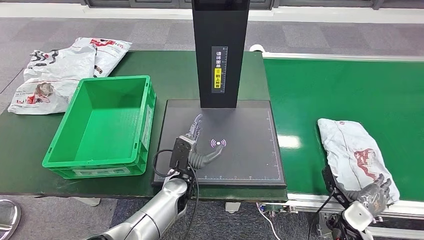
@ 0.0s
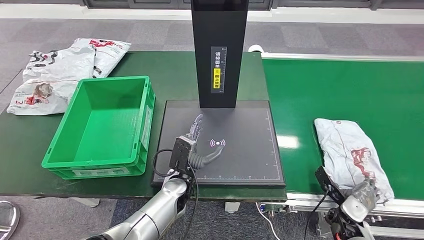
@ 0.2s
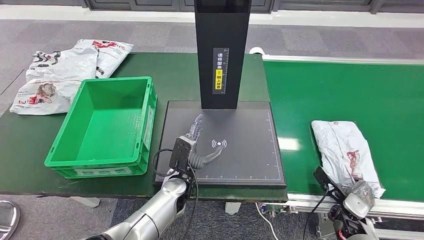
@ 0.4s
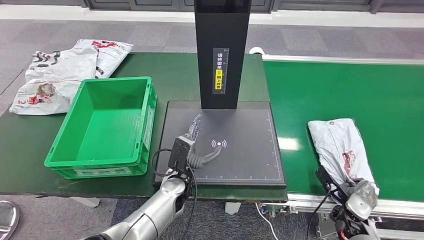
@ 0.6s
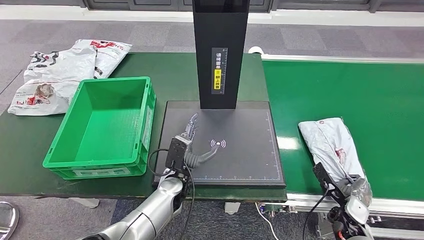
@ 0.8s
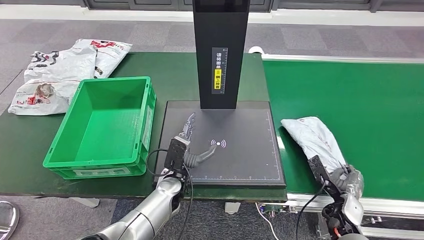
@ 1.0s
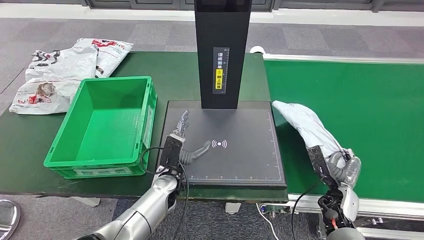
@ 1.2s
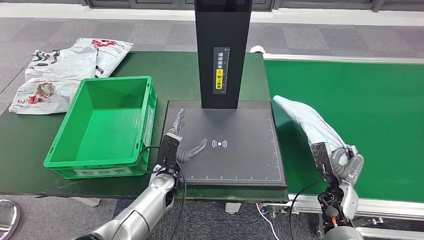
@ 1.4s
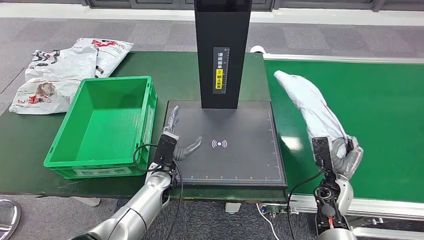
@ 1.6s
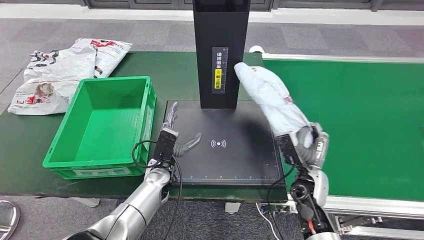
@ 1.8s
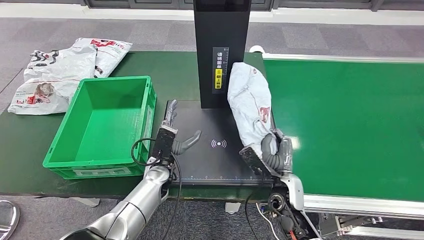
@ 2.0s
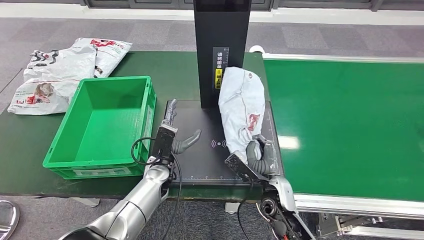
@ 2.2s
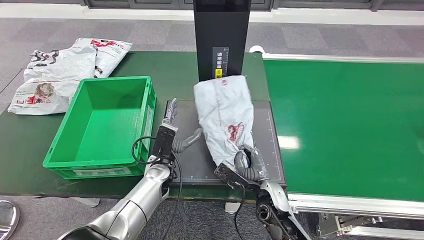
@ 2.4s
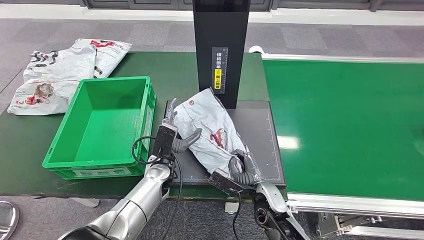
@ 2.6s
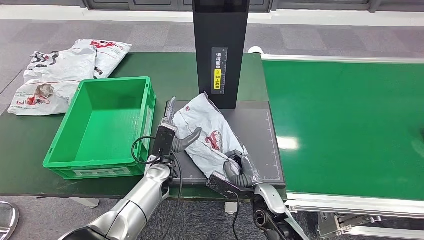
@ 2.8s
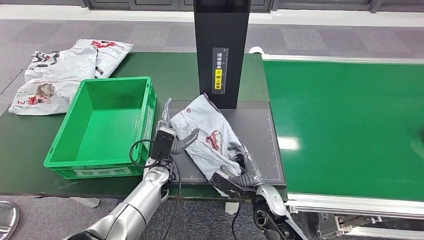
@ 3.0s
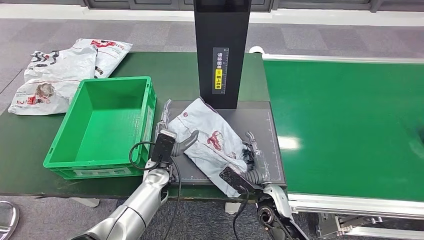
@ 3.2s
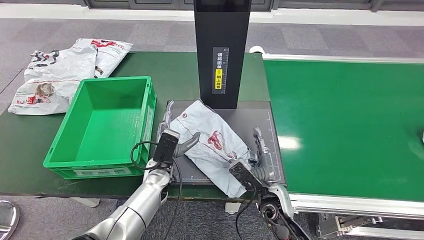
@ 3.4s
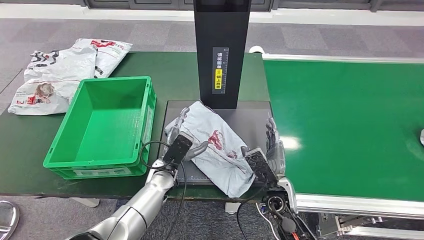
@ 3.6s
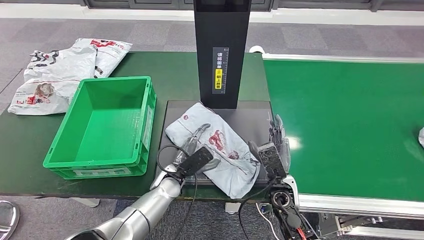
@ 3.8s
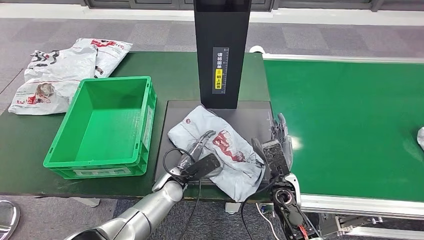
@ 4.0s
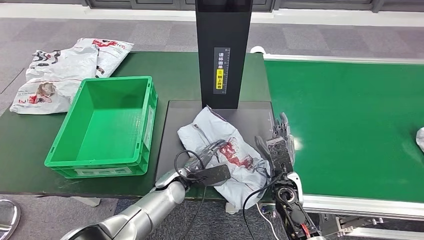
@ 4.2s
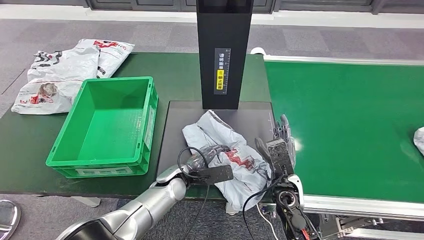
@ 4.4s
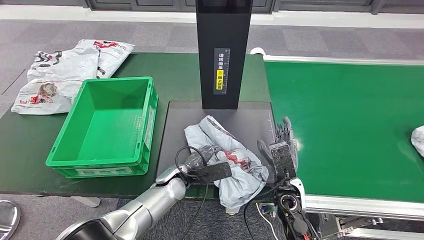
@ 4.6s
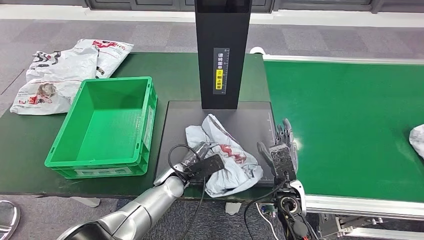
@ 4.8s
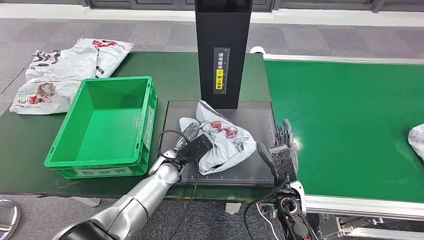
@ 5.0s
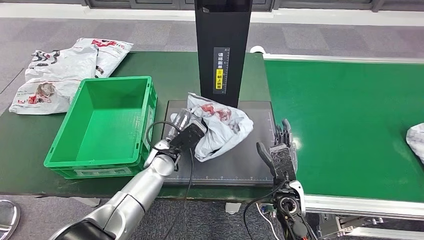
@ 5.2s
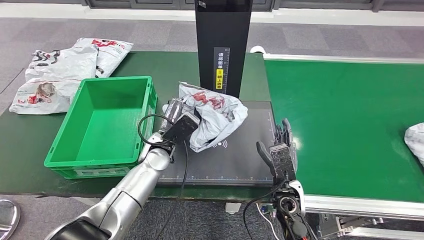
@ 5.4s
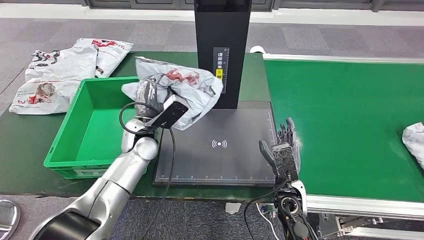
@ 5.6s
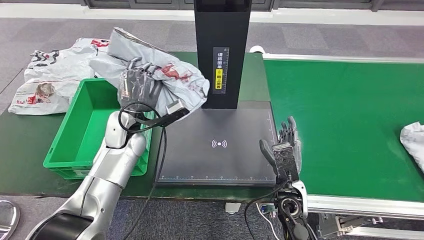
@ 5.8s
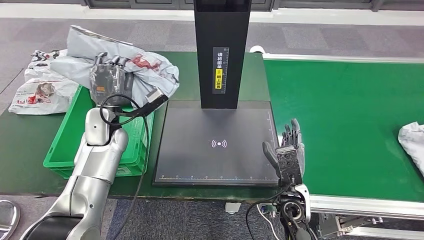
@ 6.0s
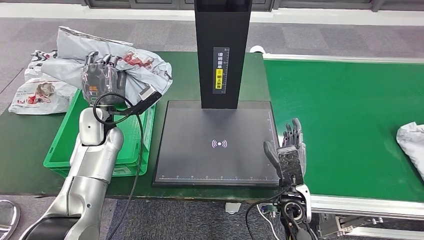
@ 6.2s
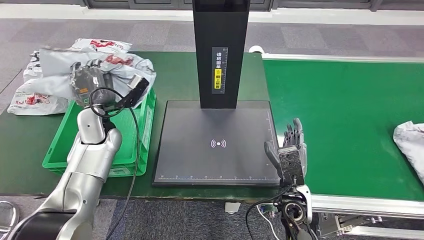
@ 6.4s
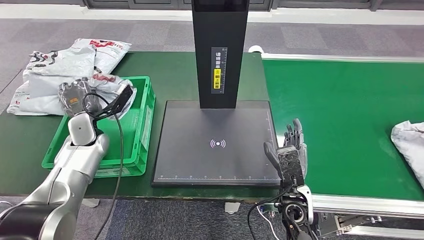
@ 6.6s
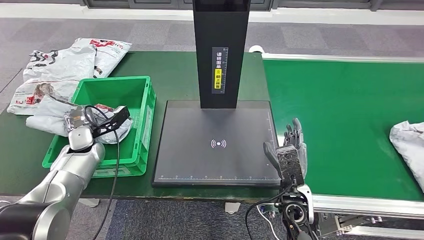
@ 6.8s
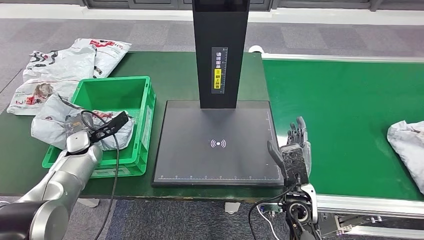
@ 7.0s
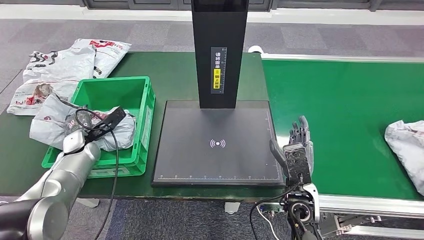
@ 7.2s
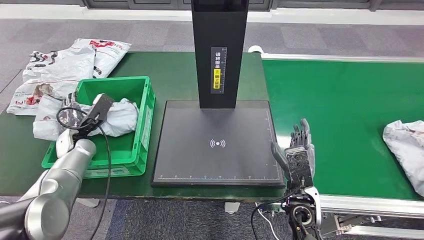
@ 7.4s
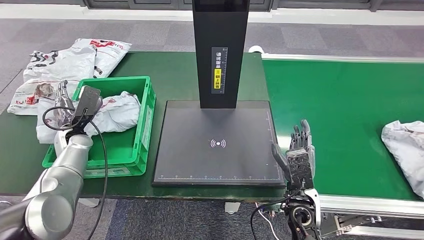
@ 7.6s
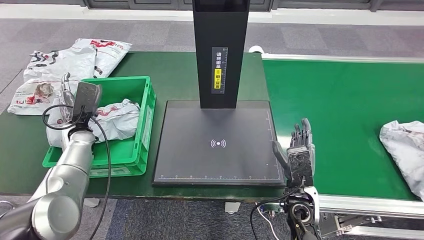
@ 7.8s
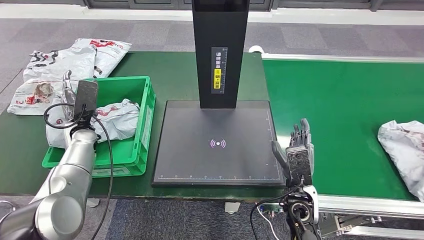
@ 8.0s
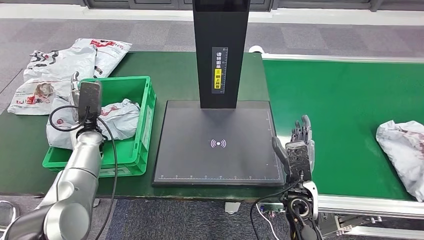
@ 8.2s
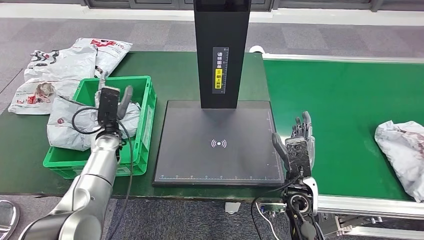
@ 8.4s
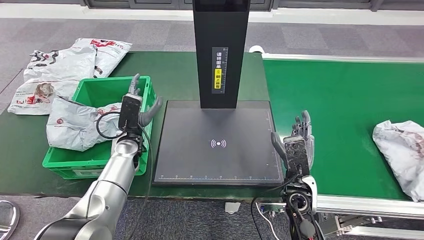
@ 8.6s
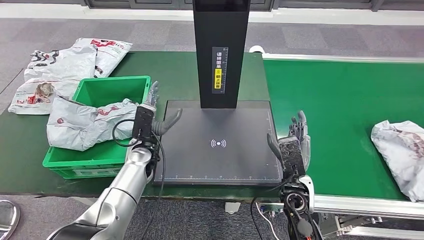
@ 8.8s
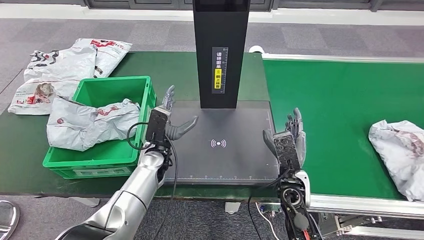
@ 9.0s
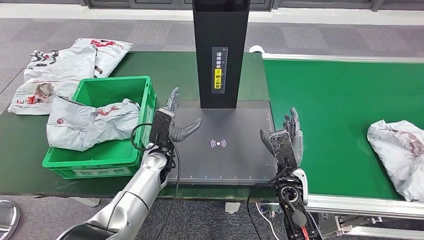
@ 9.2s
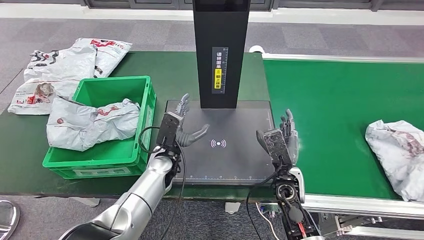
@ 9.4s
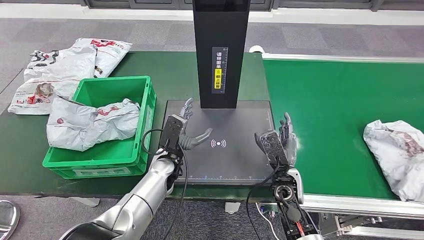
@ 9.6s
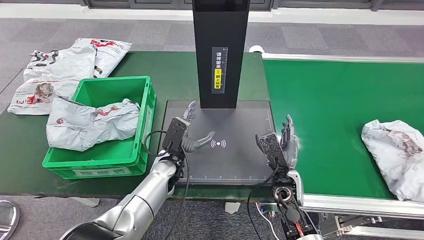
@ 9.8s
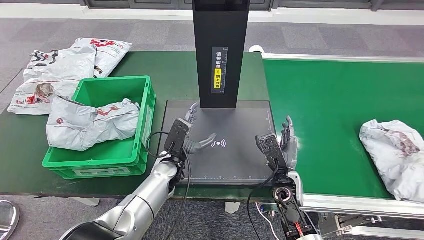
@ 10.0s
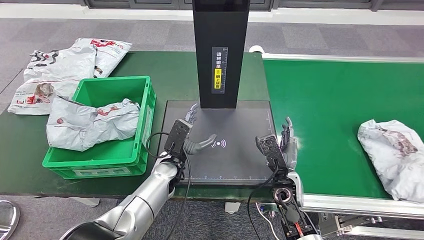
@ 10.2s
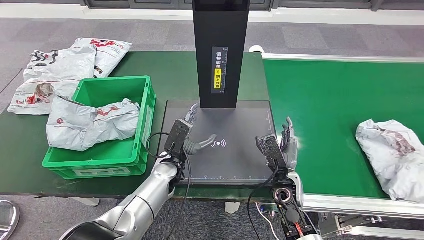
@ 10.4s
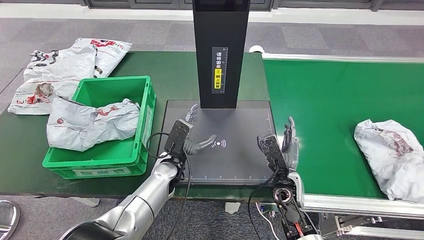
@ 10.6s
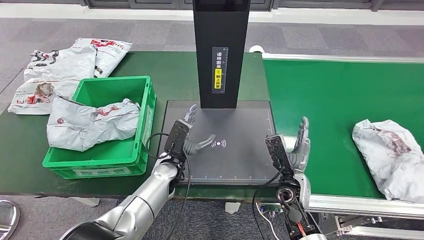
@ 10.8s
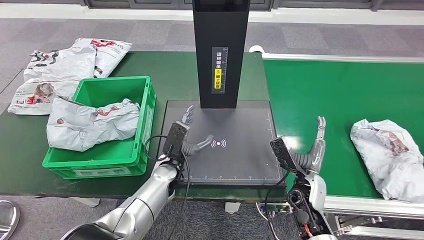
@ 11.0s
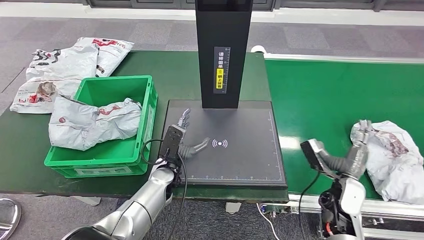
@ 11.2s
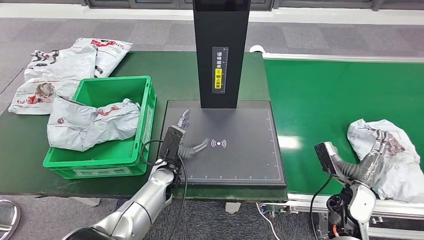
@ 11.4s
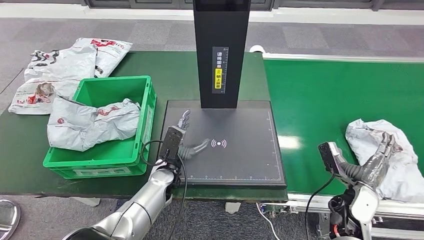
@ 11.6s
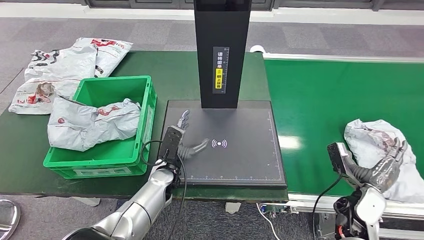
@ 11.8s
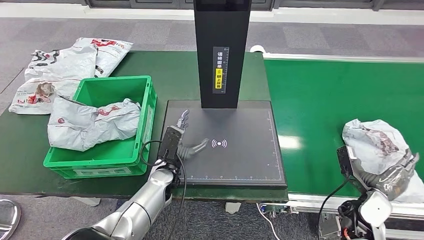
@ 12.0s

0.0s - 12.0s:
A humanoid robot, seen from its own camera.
Step, 1.4s - 3.4s: Place the parcel onto the inbound machine.
Step, 3.6s - 5.4s: Pick up the parcel from the inbound machine.
Step, 5.6s - 9.4s: Put the parcel inside the courier box.
7.6s - 9.0s: The left hand moves to the right, some 25 cm.
9.0s - 10.4s: The left hand changes place by about 5 cm.
10.4s - 12.0s: The right hand travels to the right by approximately 20 cm.

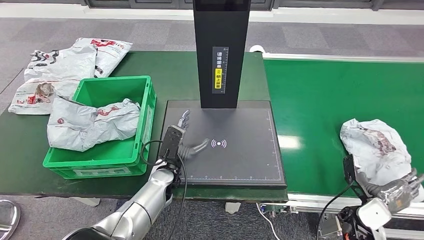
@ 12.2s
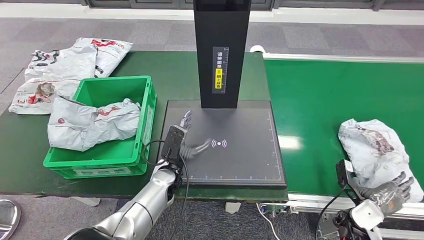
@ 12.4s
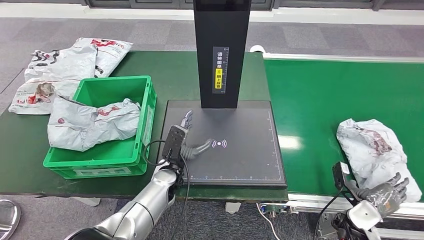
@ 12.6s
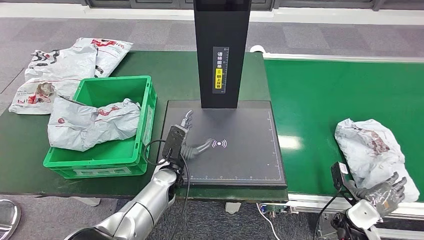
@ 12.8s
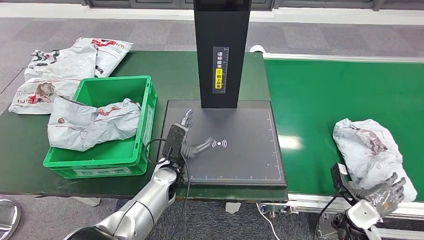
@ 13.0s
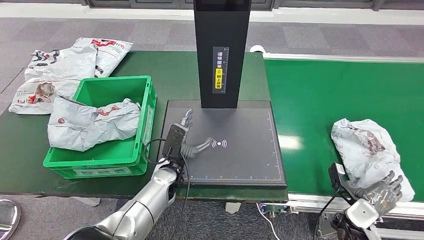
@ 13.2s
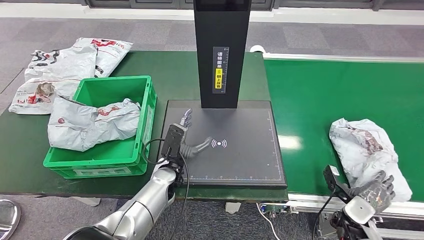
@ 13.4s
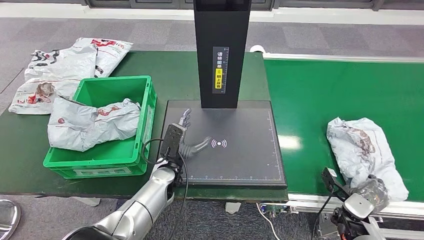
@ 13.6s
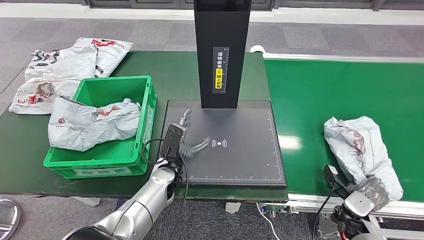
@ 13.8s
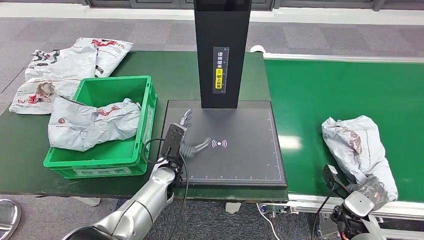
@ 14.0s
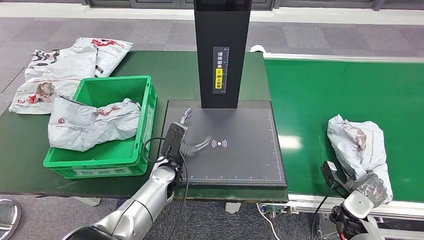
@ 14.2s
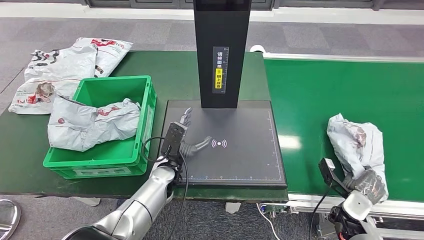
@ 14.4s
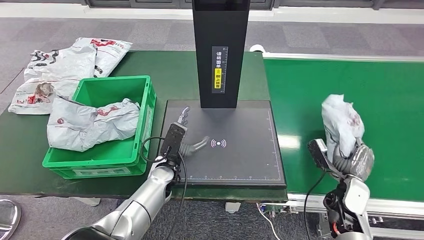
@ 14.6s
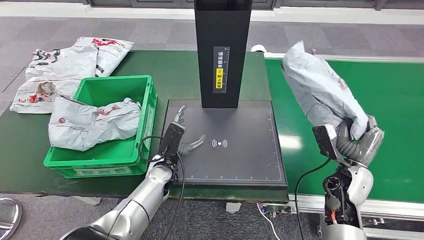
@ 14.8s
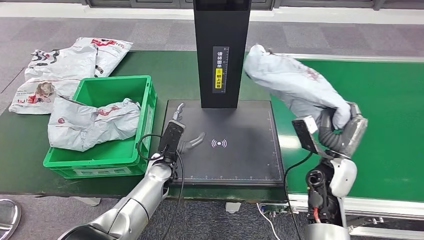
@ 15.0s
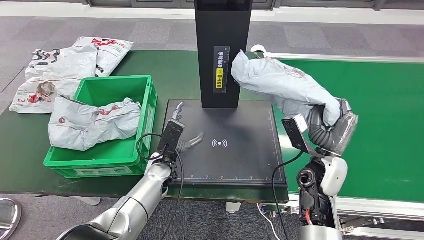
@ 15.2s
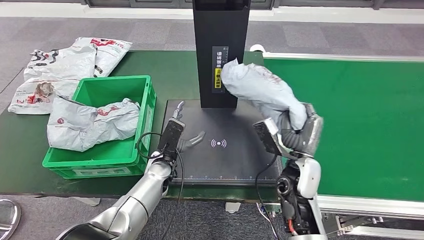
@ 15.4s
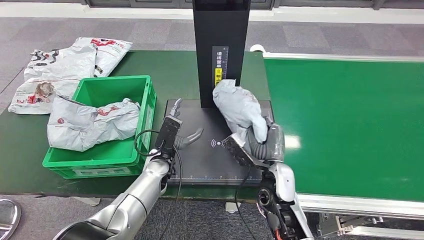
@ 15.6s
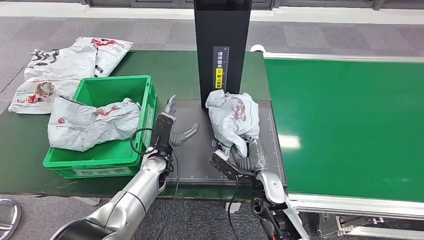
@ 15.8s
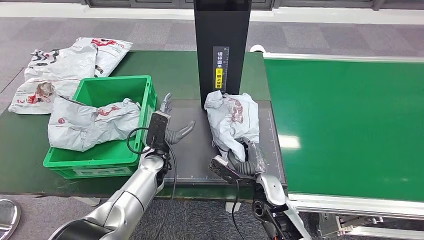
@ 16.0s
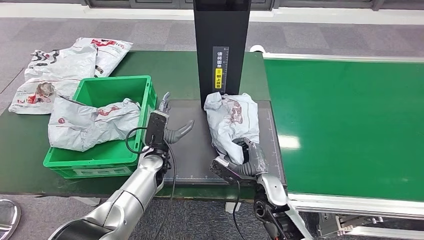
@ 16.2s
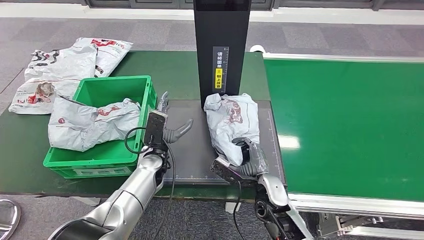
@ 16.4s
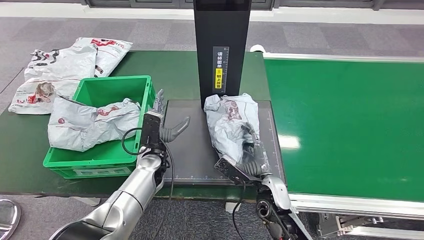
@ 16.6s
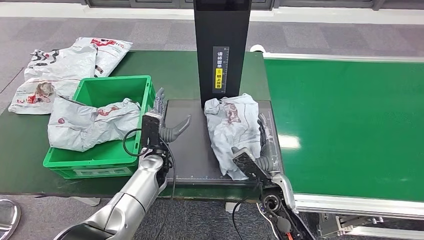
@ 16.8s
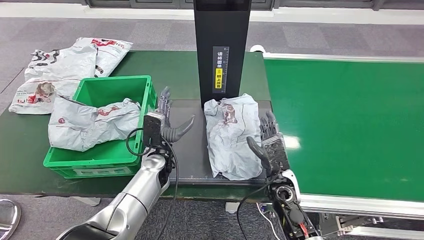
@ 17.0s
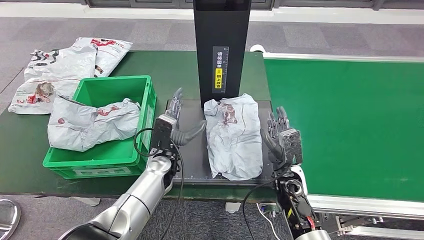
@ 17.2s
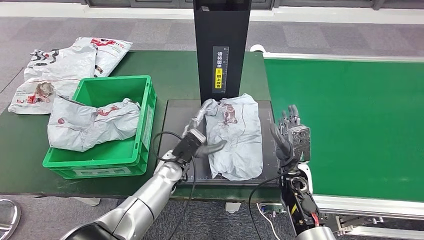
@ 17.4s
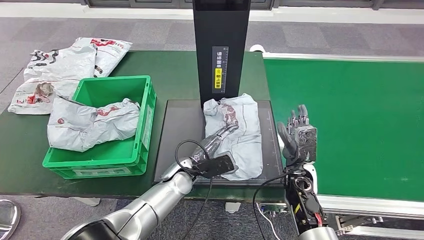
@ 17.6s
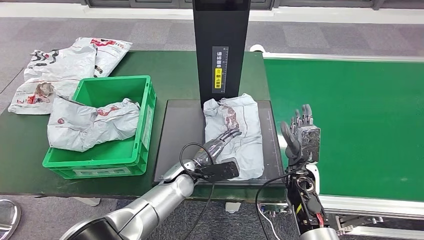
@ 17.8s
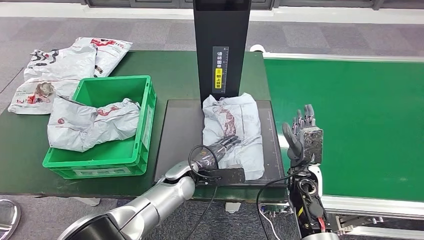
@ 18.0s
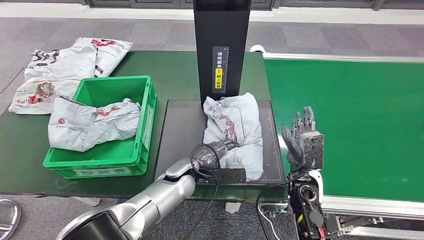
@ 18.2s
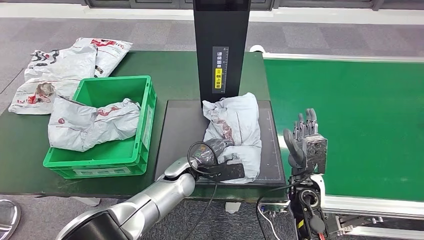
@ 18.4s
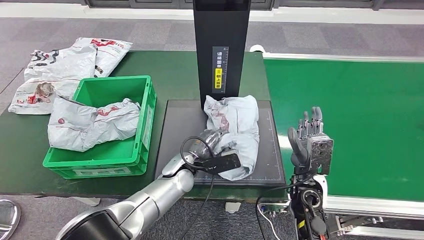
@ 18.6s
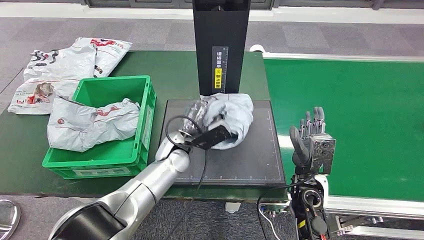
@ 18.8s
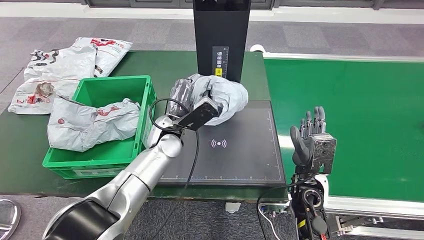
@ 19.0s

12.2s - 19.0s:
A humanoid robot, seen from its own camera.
Step, 12.2s - 14.6s: Pick up the parcel from the conveyor belt.
Step, 15.0s - 17.2s: Place the parcel onto the inbound machine.
16.2s - 17.6s: The hands both shift to the right by roughly 5 cm.
17.6s - 19.0s: The left hand goes some 10 cm upward and forward.
